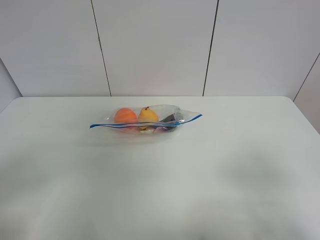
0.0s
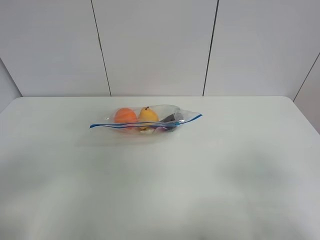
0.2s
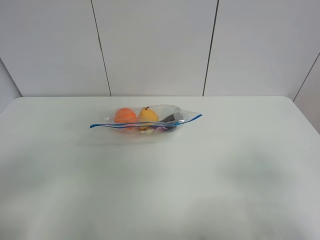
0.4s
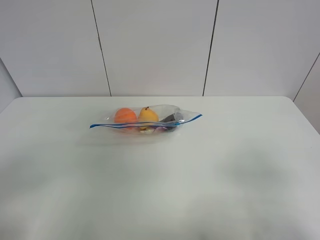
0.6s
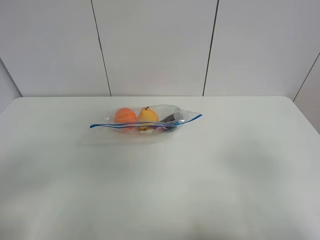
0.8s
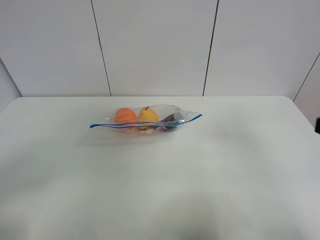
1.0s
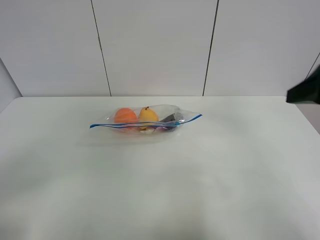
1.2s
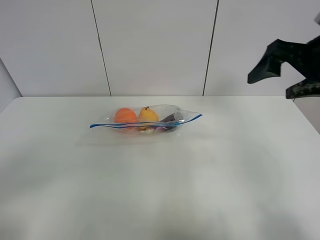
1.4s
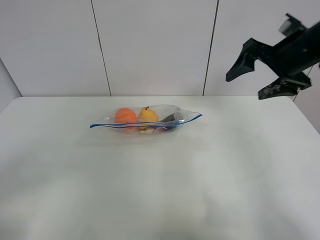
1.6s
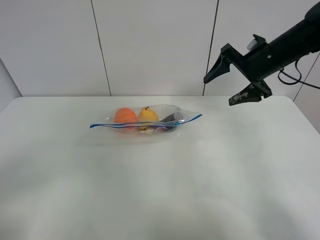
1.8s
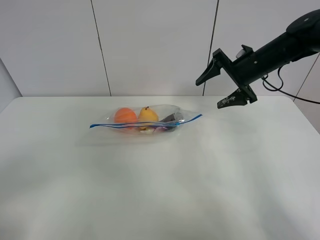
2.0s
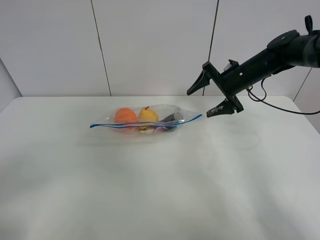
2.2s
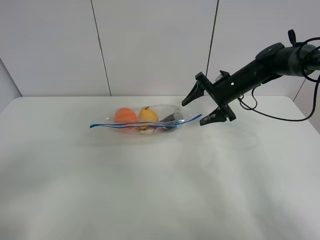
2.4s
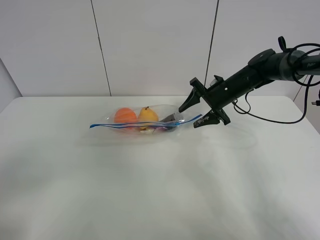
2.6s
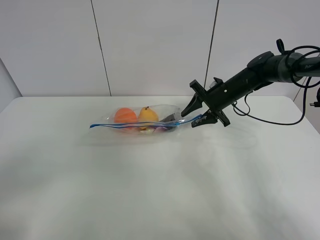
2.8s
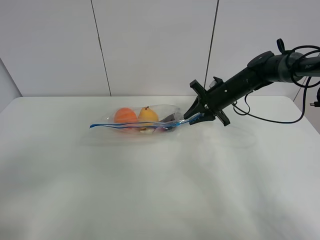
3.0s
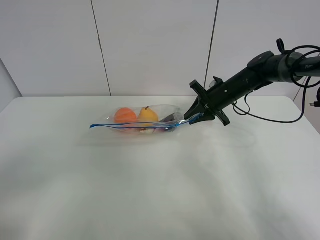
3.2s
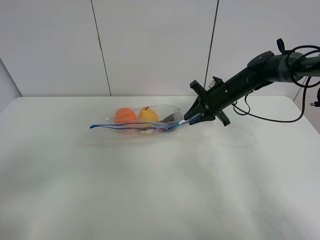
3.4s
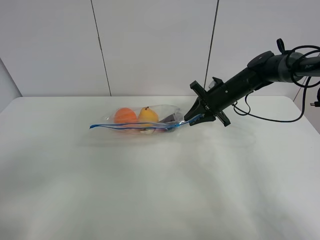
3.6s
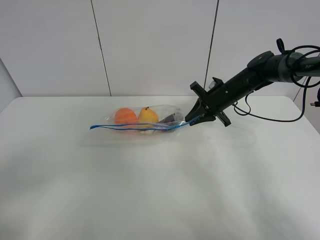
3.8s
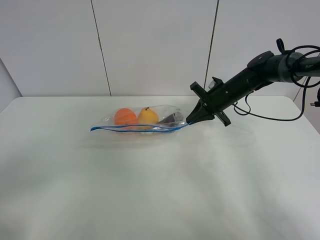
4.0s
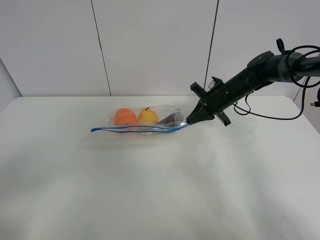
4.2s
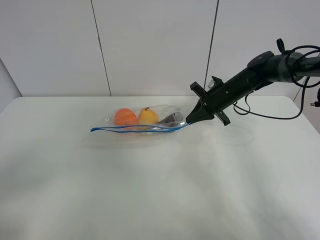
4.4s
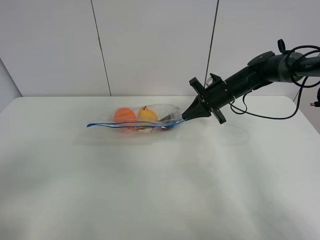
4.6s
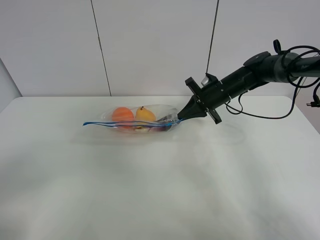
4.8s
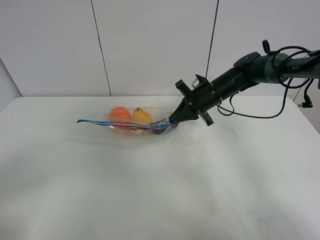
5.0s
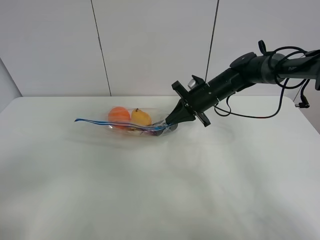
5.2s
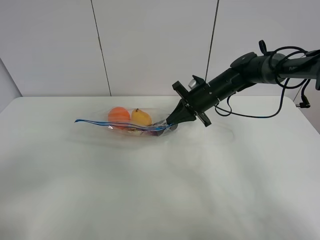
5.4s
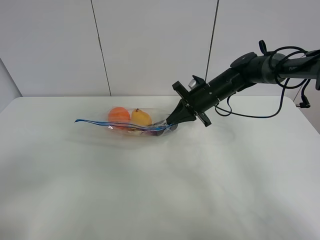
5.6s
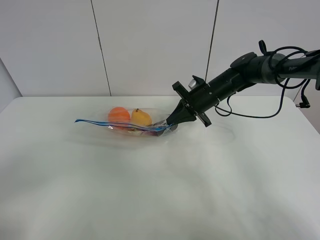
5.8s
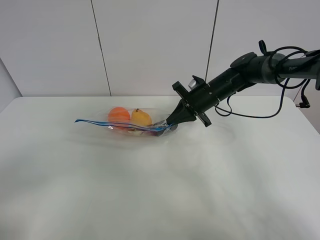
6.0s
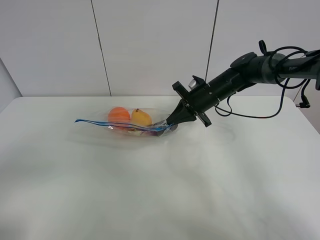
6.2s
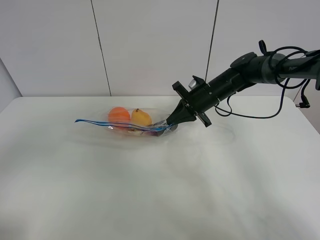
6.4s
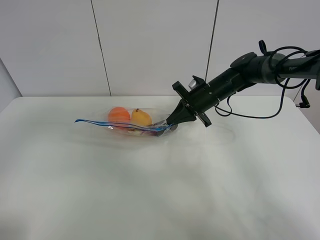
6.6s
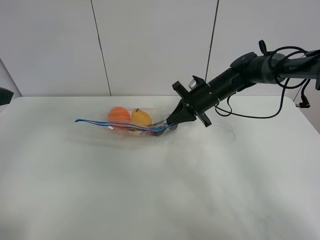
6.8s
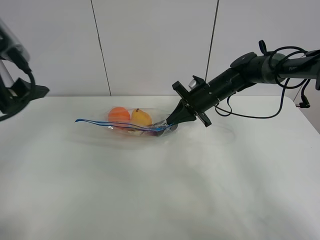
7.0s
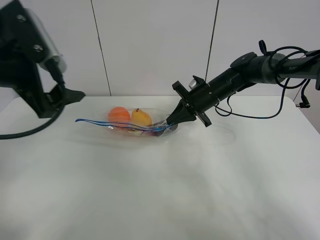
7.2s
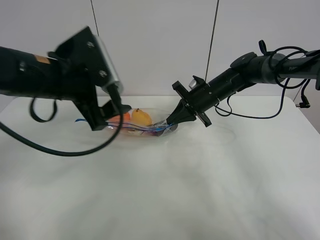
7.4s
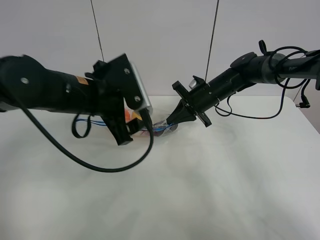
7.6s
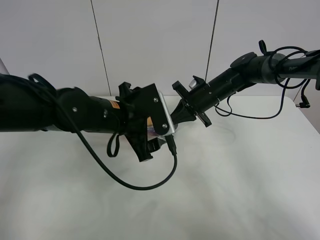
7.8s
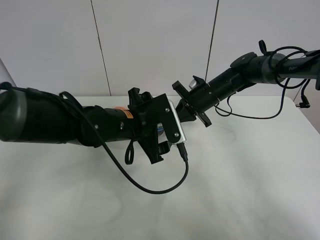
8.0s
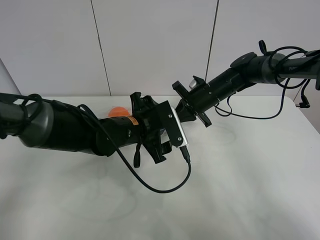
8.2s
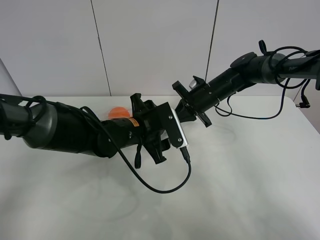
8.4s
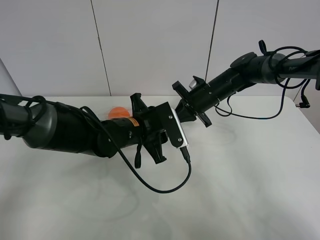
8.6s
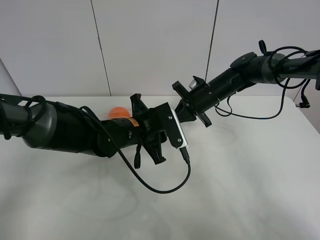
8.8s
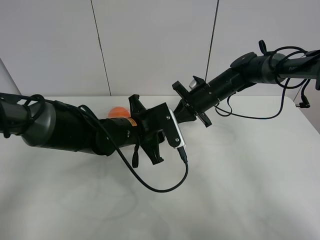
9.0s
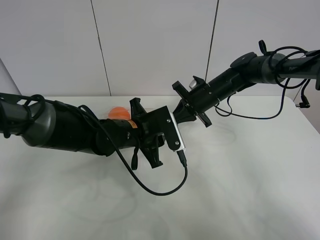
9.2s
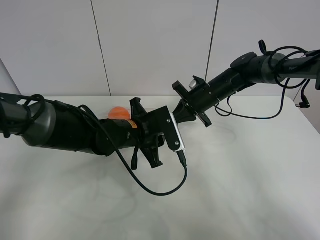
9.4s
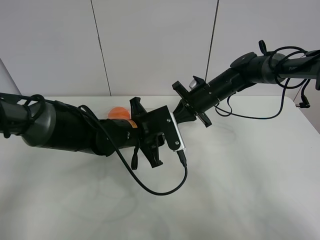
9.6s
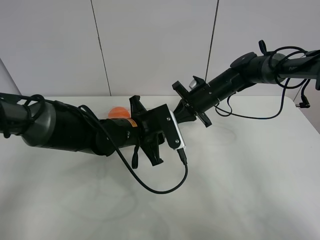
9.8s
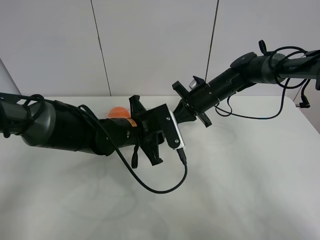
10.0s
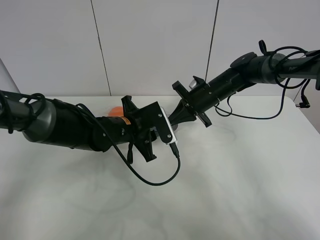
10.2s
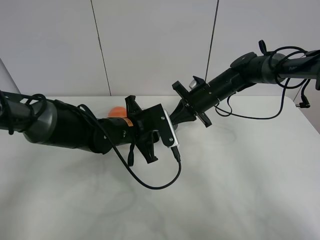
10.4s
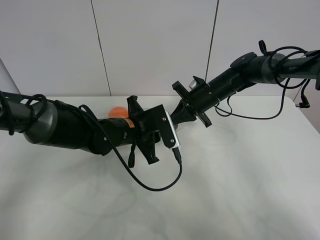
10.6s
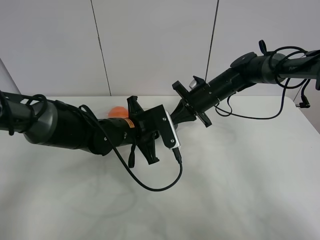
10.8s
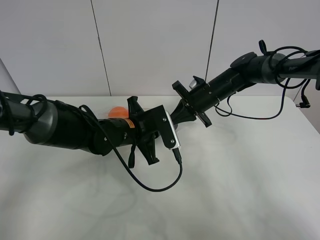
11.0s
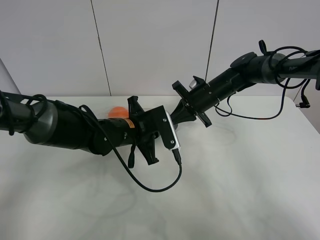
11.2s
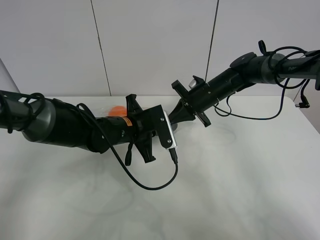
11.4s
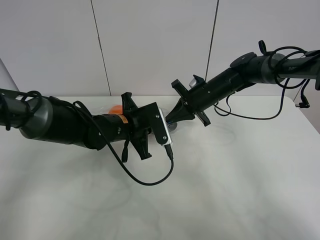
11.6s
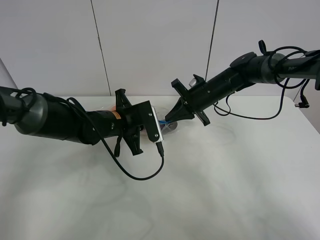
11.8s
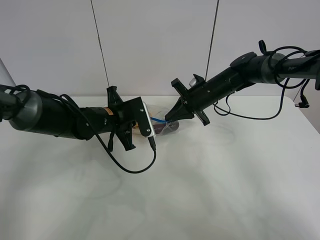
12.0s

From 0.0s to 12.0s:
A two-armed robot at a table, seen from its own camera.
Step, from 0.0s to 4.0s: Grasp the fruit bag with right gripper.
Step, from 4.2s to 5.4s: Lift the fruit bag with your right gripper.
From 0.0s to 1.6s: The right gripper shifts approximately 35 cm forward.
From 1.6s to 3.0s: The right gripper heads downward and forward, covering roughly 20 cm, and closes its fingers.
From 3.0s to 4.4s: The grippers move only a little.
From 4.4s to 6.0s: The right gripper heads to the left, covering roughly 5 cm.
From 6.0s to 7.6s: The left gripper goes some 35 cm forward and to the right.
From 7.6s to 9.0s: The left gripper travels downward by roughly 10 cm, and closes its fingers.
From 9.0s to 10.4s: The grippers make only small movements.
From 10.4s to 12.0s: The left gripper travels to the left by about 5 cm, and closes.

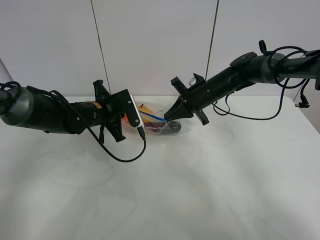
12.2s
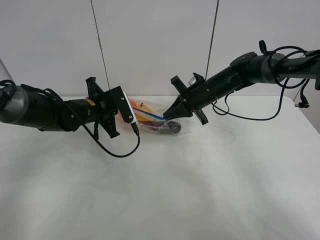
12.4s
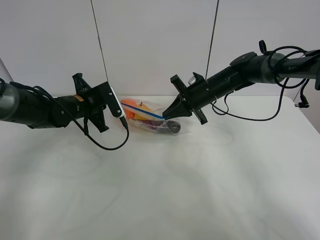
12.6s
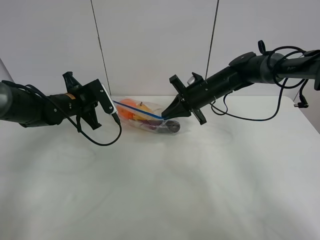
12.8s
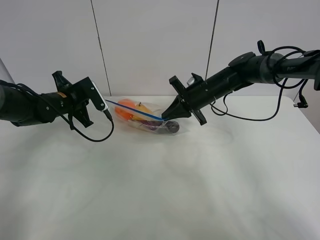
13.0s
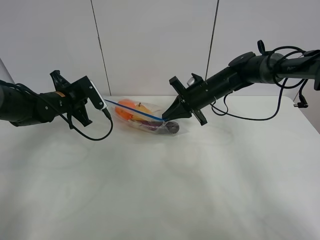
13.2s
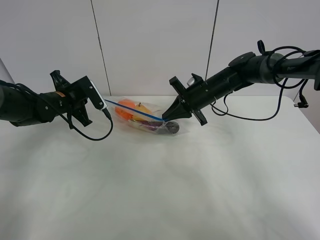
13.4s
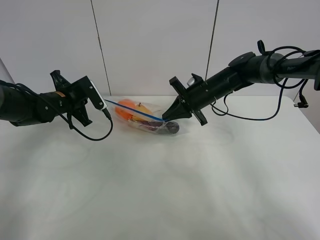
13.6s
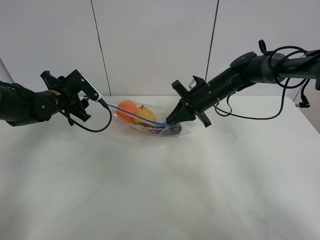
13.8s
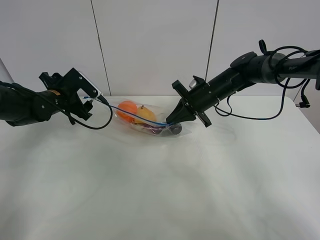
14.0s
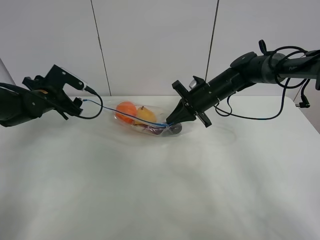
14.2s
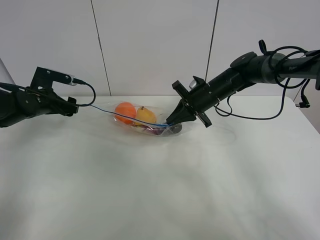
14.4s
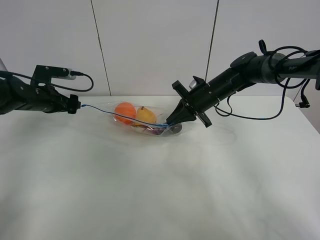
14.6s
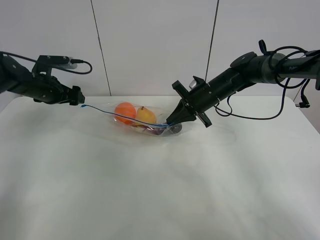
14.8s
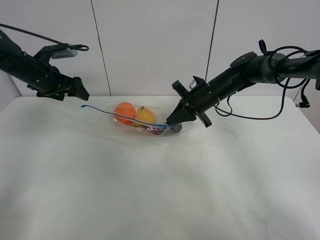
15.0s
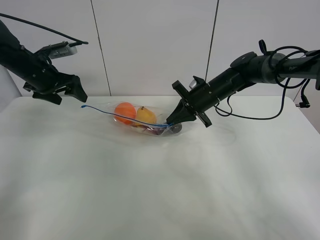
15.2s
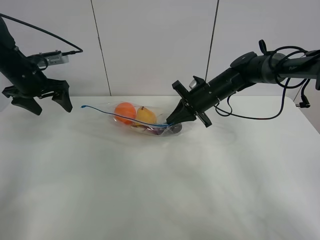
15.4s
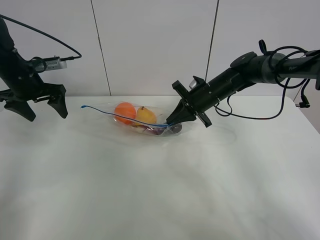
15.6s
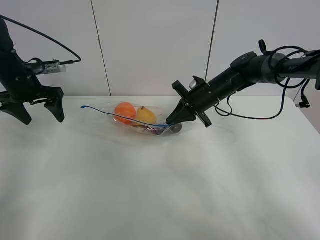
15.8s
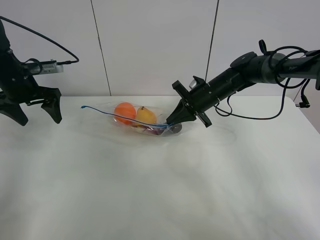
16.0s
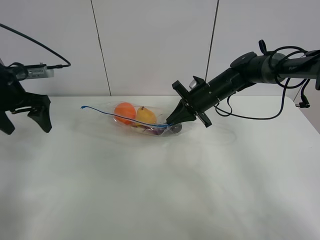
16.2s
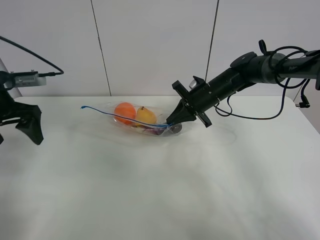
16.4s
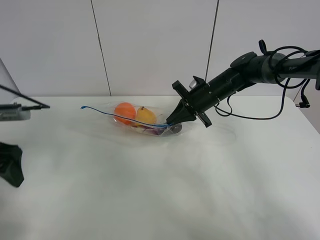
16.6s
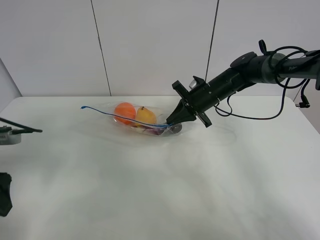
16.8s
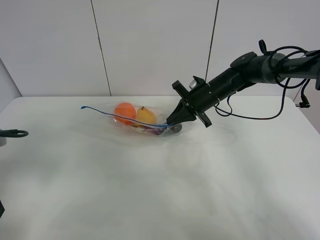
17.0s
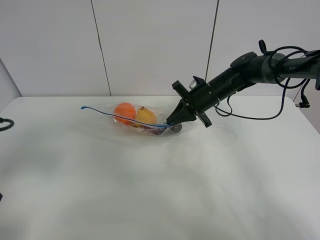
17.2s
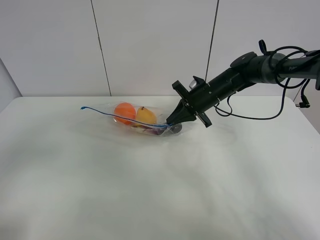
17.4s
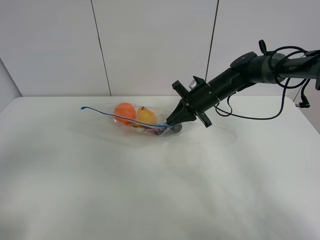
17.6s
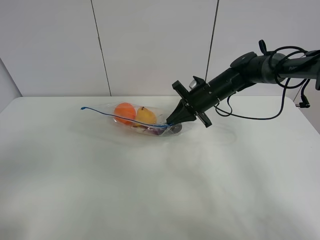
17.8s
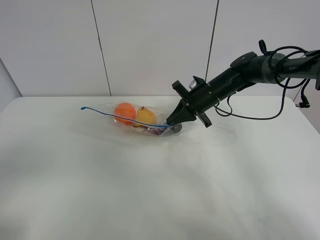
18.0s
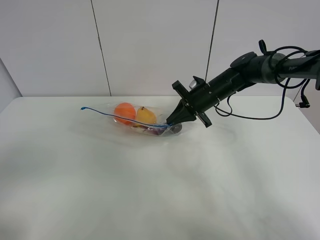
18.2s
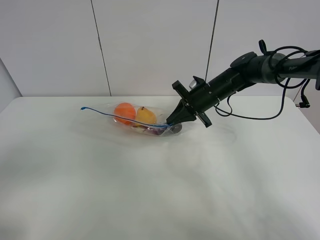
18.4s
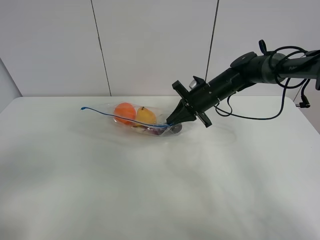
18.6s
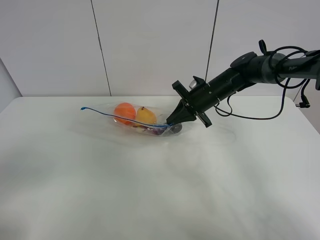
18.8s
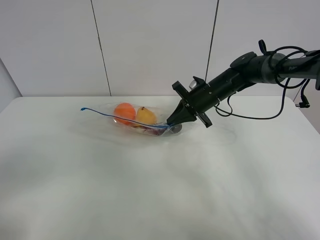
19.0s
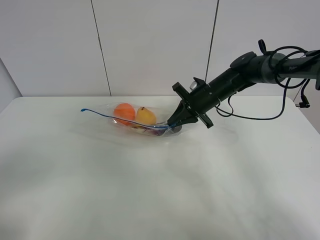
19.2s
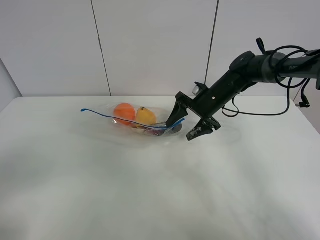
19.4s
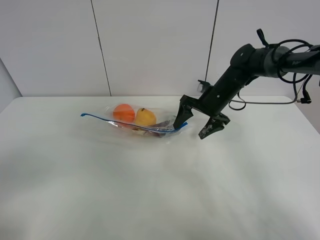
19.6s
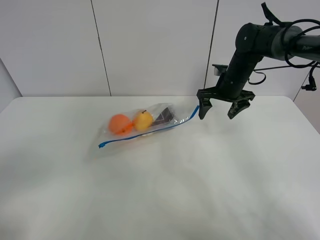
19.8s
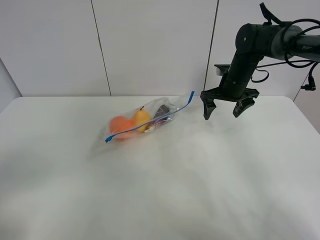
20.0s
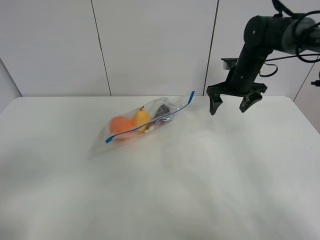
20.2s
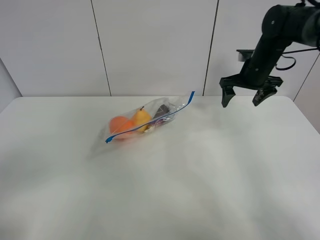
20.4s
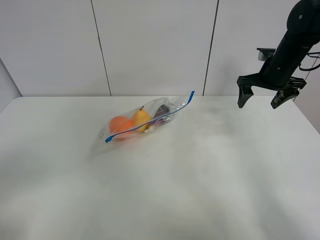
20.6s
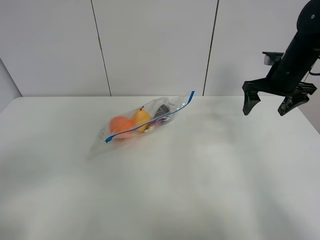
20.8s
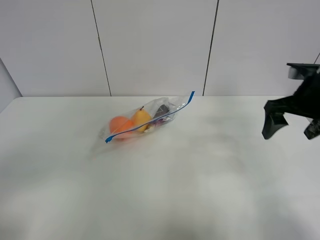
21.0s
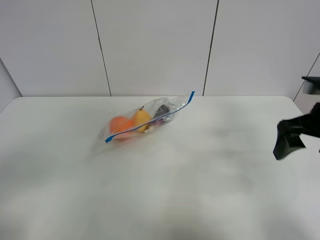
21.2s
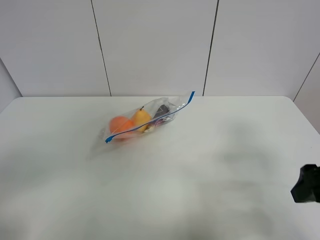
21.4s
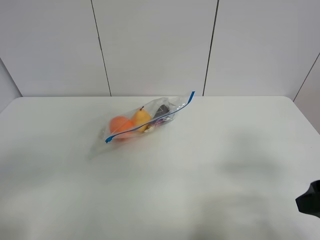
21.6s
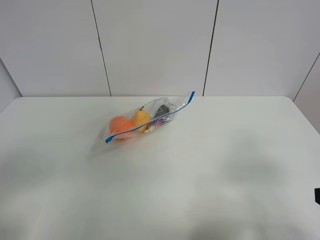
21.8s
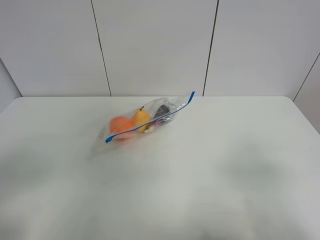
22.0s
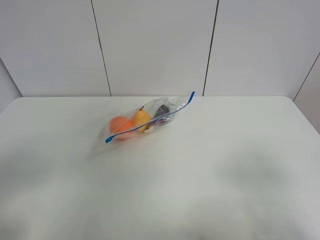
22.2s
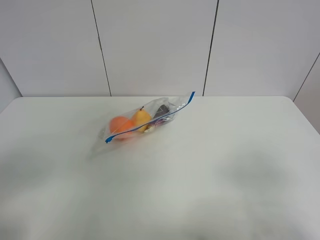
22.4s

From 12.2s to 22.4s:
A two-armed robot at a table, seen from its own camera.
From 12.2s to 13.6s: The left gripper goes about 10 cm to the left.
From 13.6s to 15.2s: The left gripper heads upward, covering approximately 10 cm, and opens up.
From 15.2s to 16.6s: The left gripper goes roughly 20 cm backward.
From 16.6s to 18.0s: The left gripper moves backward, roughly 20 cm.
From 18.0s to 19.4s: The right gripper opens up.
From 19.4s to 21.0s: The right gripper shifts roughly 25 cm backward, to the right and upward.
From 21.0s to 22.4s: The right gripper travels backward by some 25 cm.
